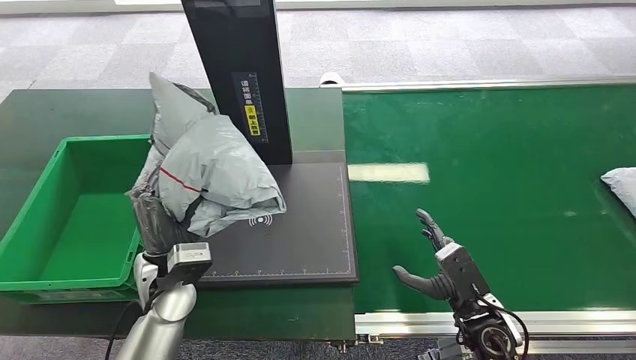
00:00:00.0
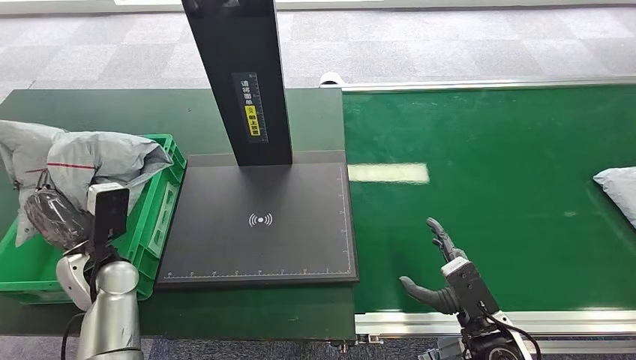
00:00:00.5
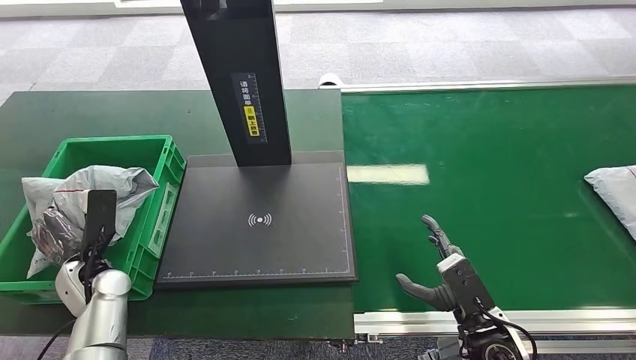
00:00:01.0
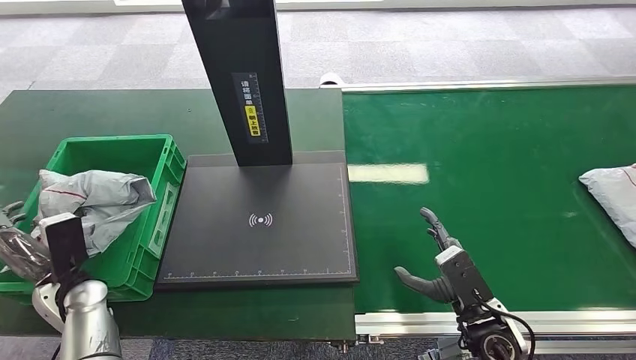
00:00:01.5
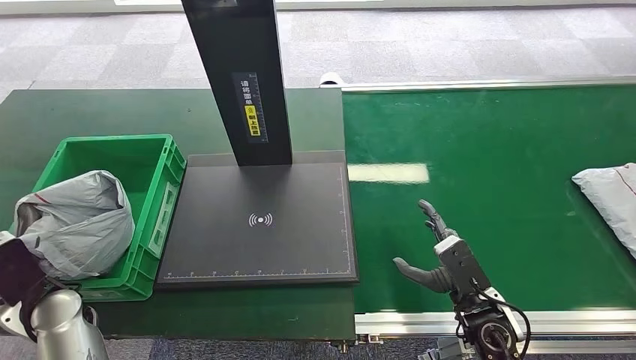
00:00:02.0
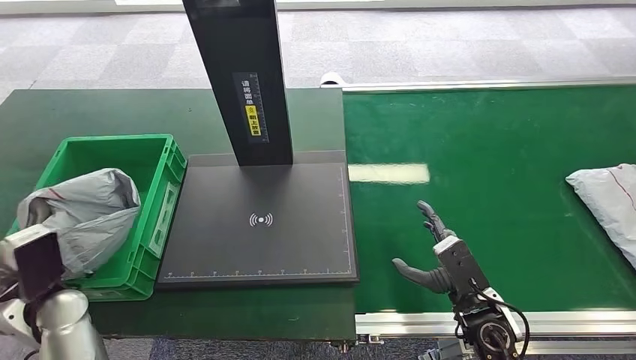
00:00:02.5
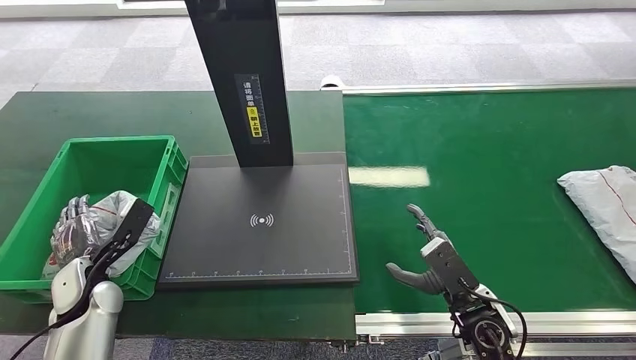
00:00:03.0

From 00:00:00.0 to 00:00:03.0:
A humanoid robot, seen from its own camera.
Step, from 00:00:00.5 to 00:00:03.0: Place the package into the parcel locker.
From 00:00:00.0 to 00:00:01.5: The left hand moves to the left, some 15 cm.
